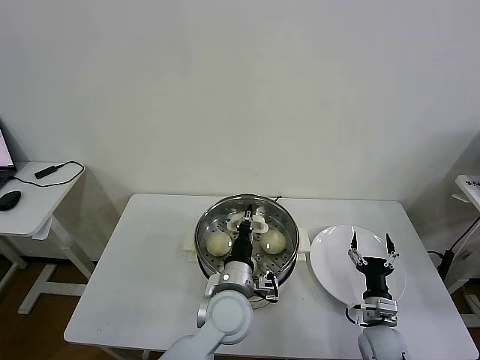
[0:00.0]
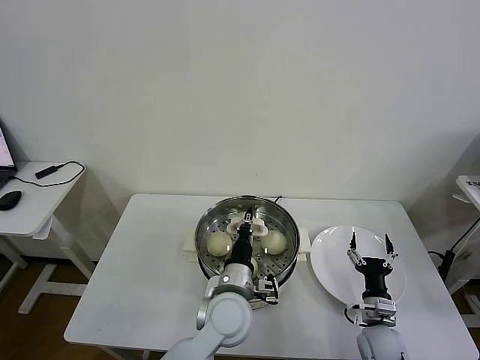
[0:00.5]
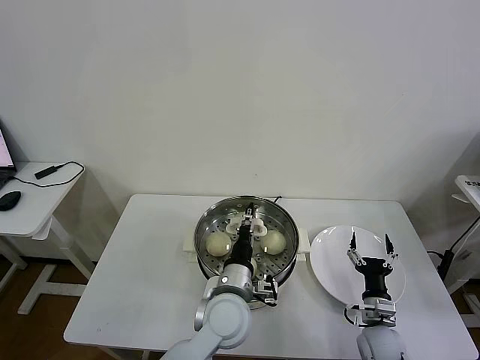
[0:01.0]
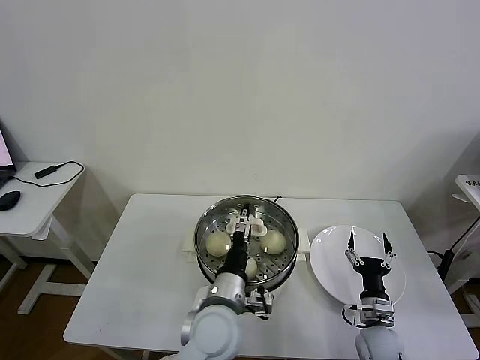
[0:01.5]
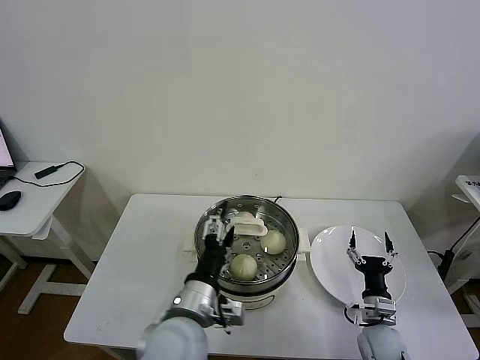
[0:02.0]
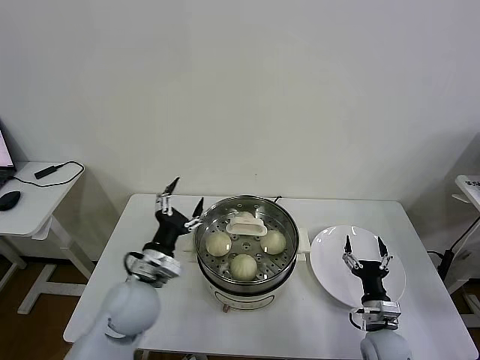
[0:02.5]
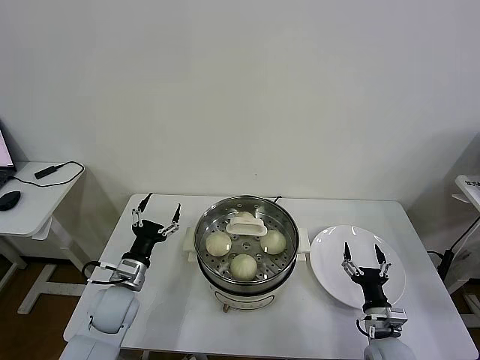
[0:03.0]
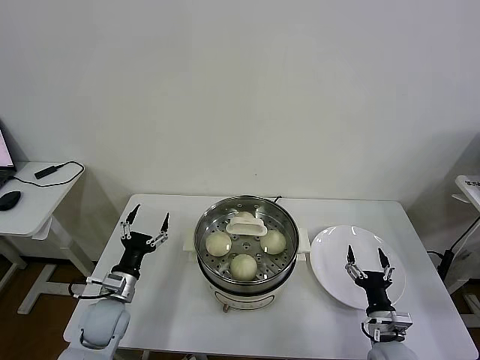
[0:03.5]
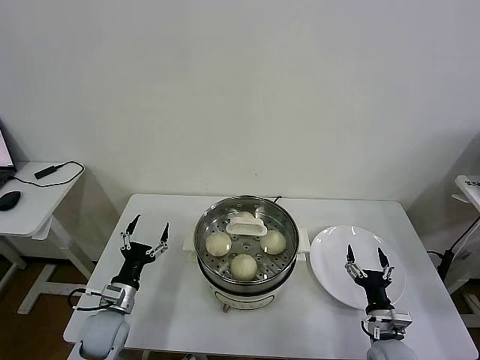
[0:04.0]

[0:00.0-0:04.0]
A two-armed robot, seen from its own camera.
Task of the whole recording: take steamed baozi put them in steamer then cover it.
0:00.0 to 0:02.0: The left gripper shifts some 10 cm backward, to the left and upward, and opens.
0:02.0 to 0:04.0: The left gripper travels to the left and downward by about 25 cm.

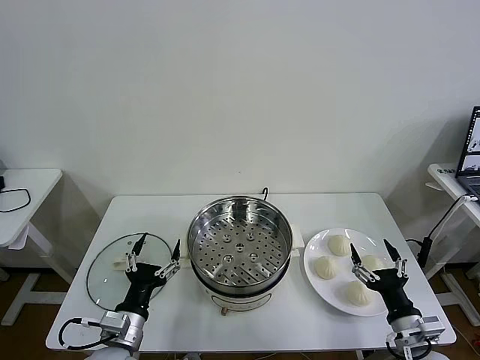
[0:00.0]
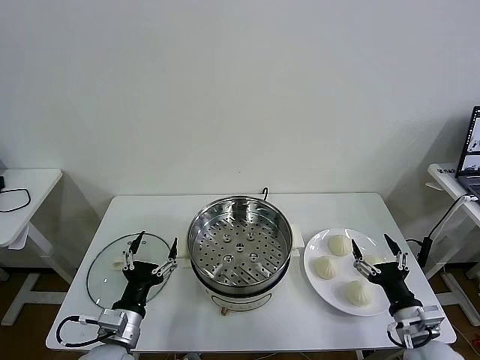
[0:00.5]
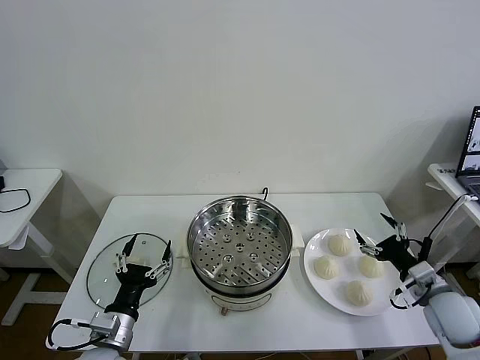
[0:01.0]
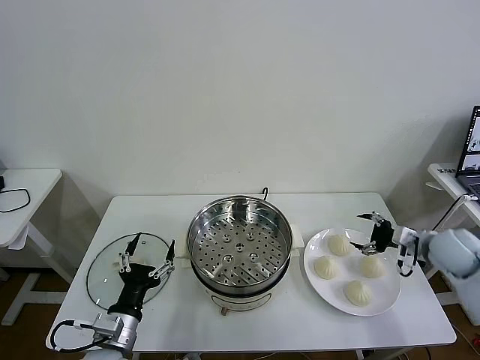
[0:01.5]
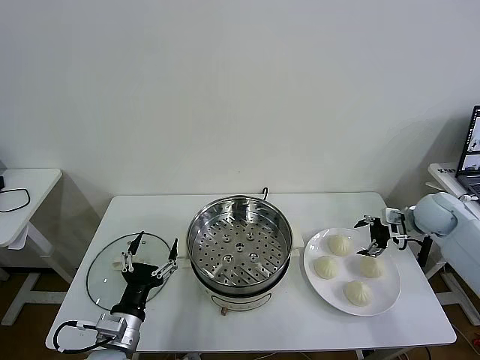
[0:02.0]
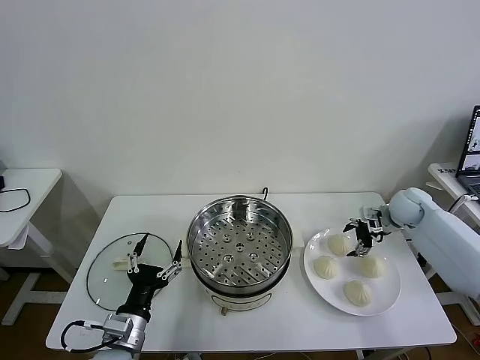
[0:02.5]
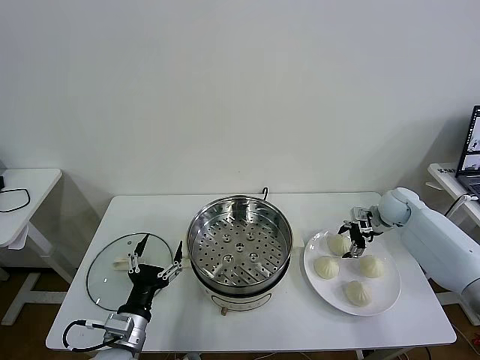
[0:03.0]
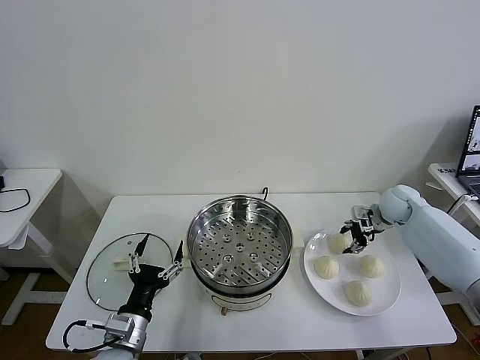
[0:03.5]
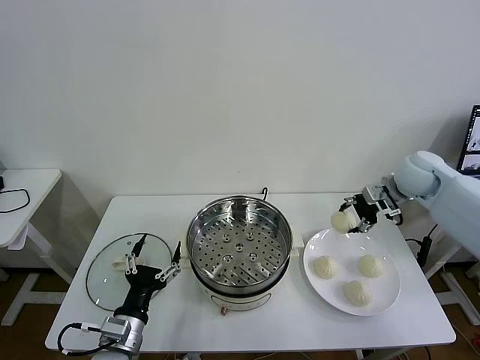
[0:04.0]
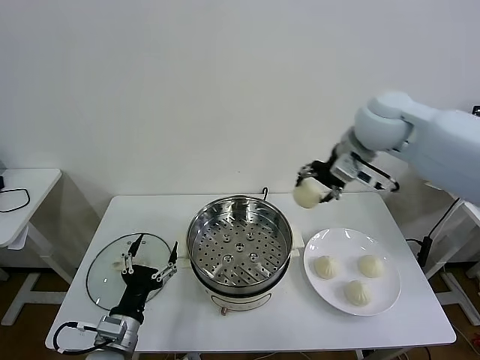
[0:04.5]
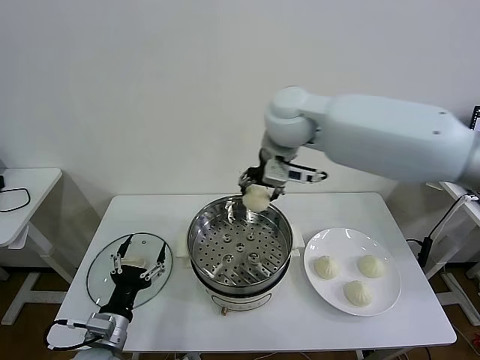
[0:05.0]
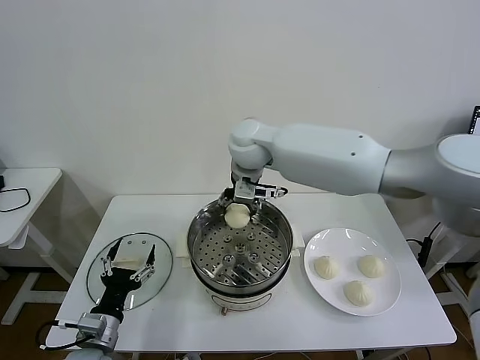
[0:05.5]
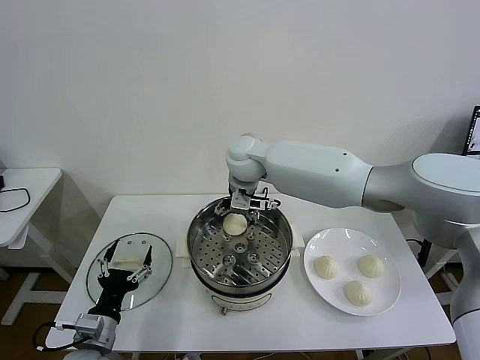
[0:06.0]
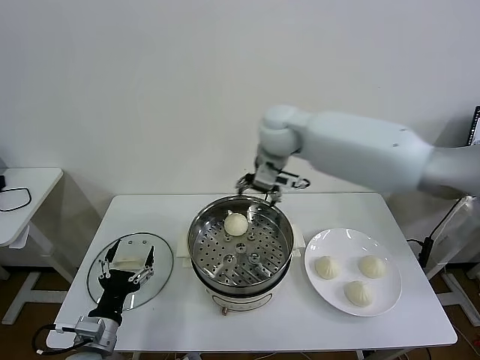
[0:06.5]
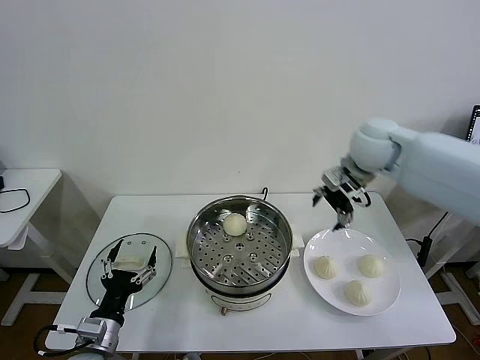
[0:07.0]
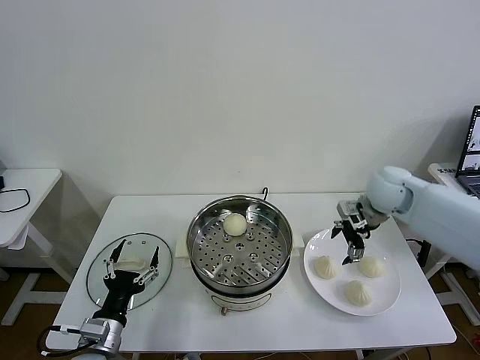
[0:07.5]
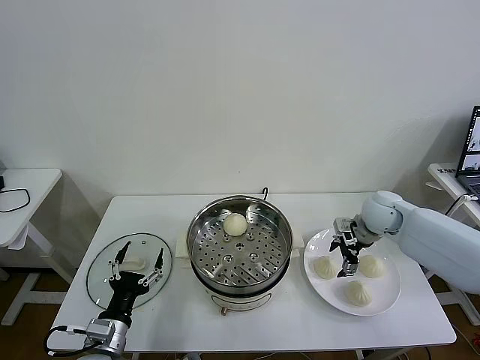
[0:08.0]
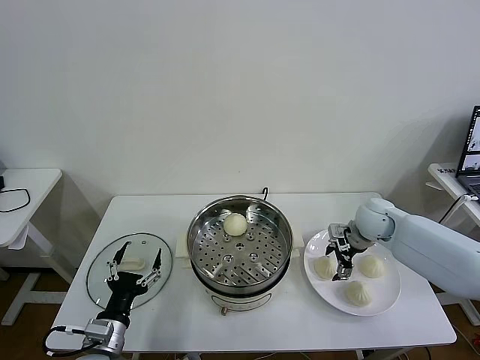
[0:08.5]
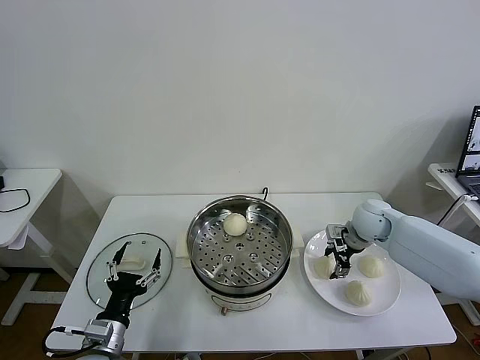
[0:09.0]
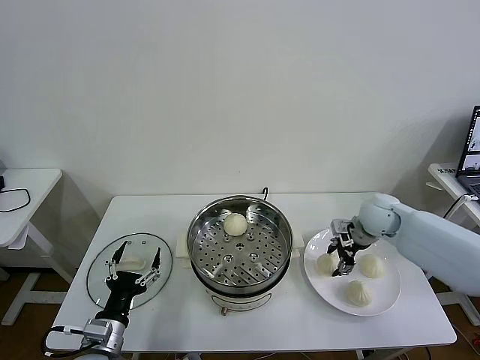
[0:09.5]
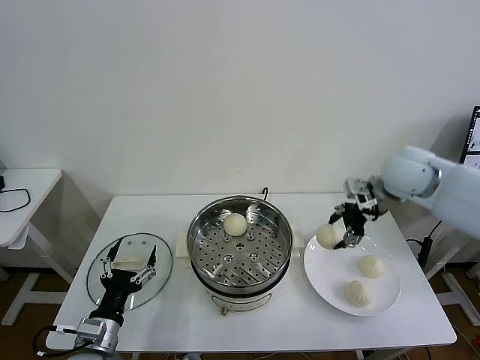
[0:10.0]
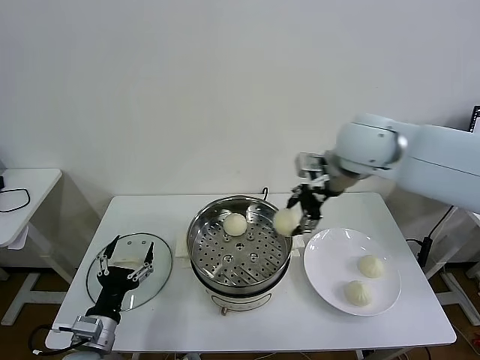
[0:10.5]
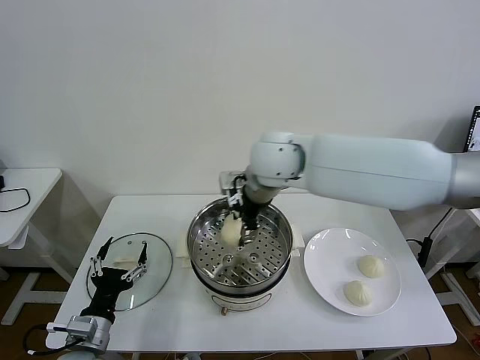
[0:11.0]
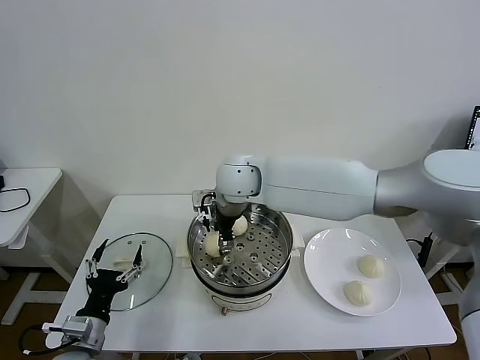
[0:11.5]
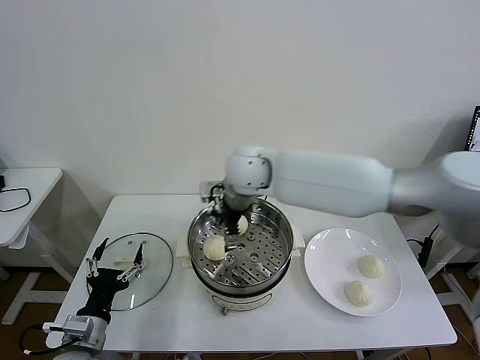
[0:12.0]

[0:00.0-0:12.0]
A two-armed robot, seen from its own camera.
Task of the whole recording: take steamed baozi put them in steamer then cover it.
Step, 0:00.0 to 0:03.0: Grasp the baozi in the plate with right gripper.
Step, 0:03.5 to 0:06.0: Place the baozi on the steamer with right gripper.
Step, 0:06.5 to 0:08.5: Grasp the baozi in the plate with right gripper.
Step, 0:09.0 to 0:11.5: Place the baozi on the steamer with right gripper.
0:02.0 to 0:04.0: The right gripper goes some 15 cm upward and to the left, and closes up.
0:04.0 to 0:06.0: The right gripper travels to the left by approximately 35 cm, and opens its fingers, while the left gripper heads to the left, covering about 5 cm.
0:06.0 to 0:08.0: The right gripper goes roughly 35 cm to the right and downward.
0:08.0 to 0:10.0: The right gripper moves upward, approximately 20 cm, and closes its fingers.
0:10.0 to 0:12.0: The right gripper moves to the left, some 25 cm, and opens.

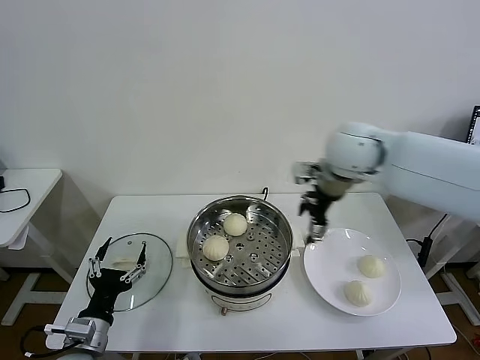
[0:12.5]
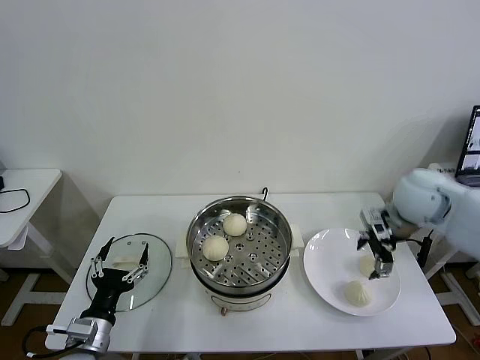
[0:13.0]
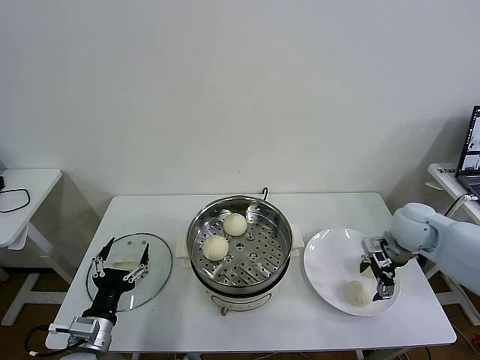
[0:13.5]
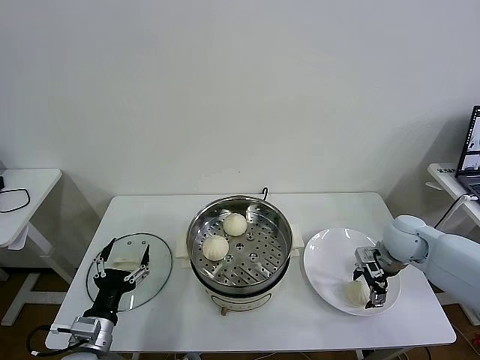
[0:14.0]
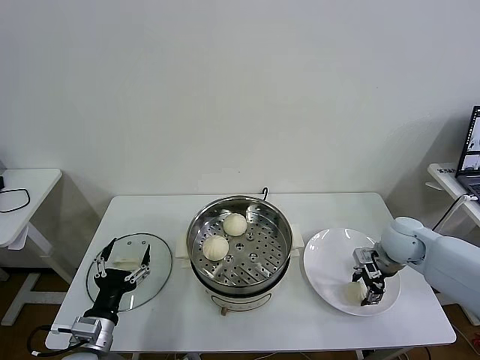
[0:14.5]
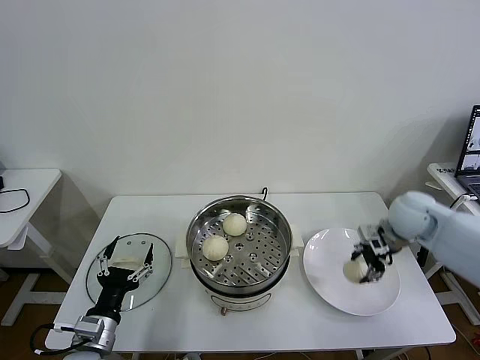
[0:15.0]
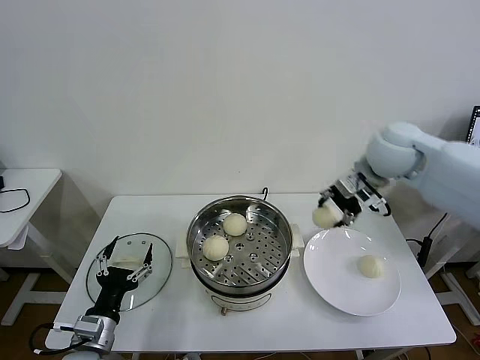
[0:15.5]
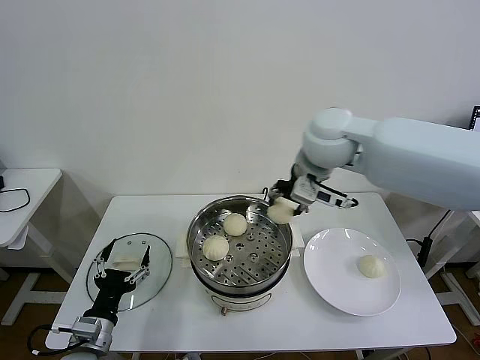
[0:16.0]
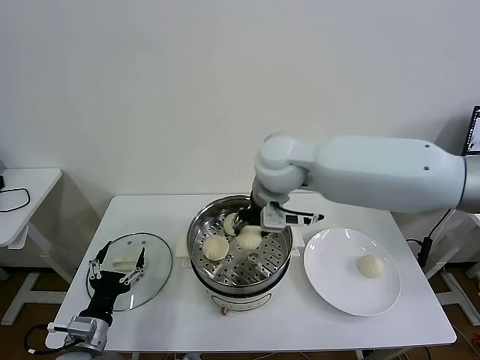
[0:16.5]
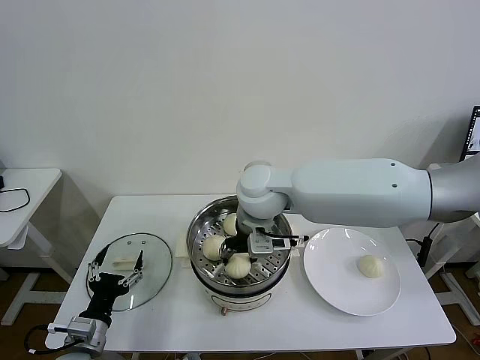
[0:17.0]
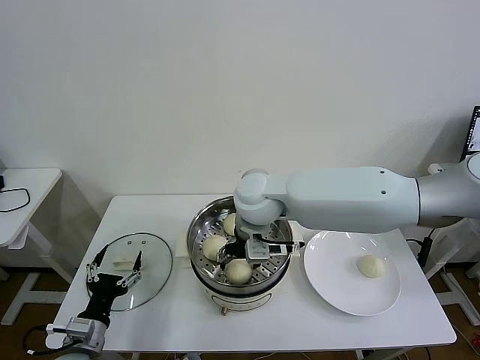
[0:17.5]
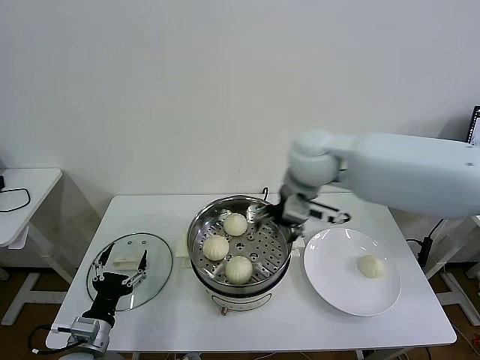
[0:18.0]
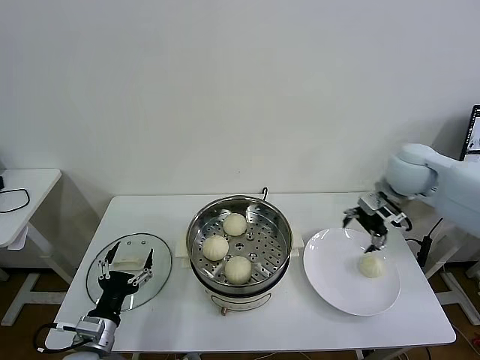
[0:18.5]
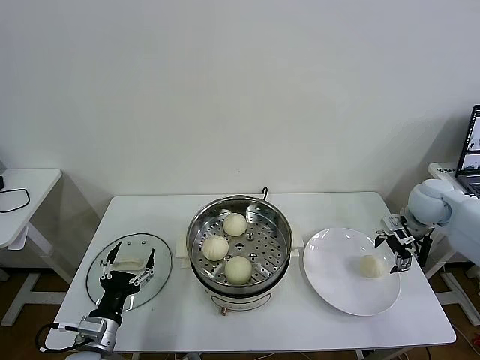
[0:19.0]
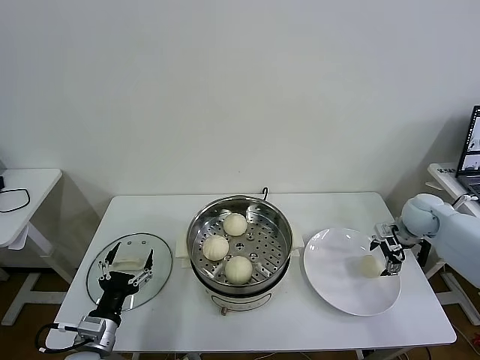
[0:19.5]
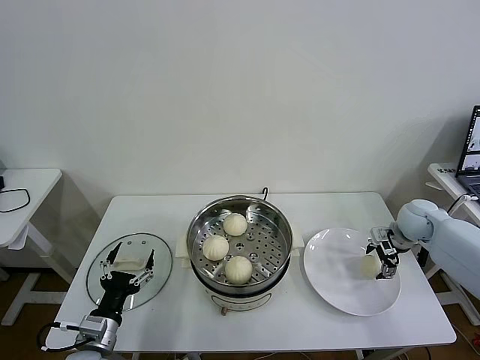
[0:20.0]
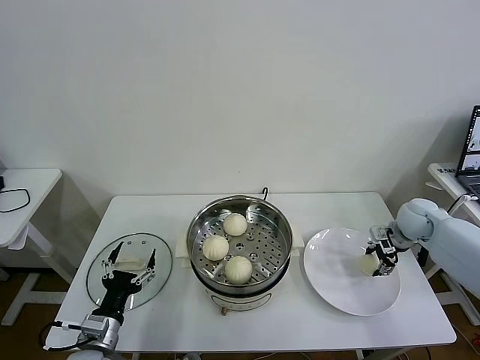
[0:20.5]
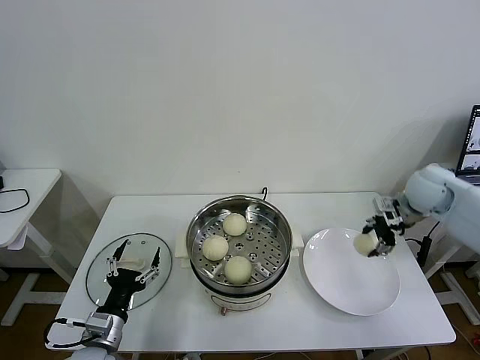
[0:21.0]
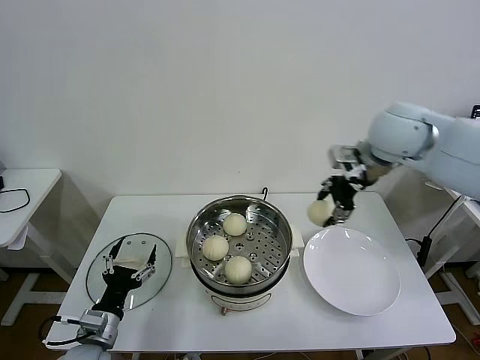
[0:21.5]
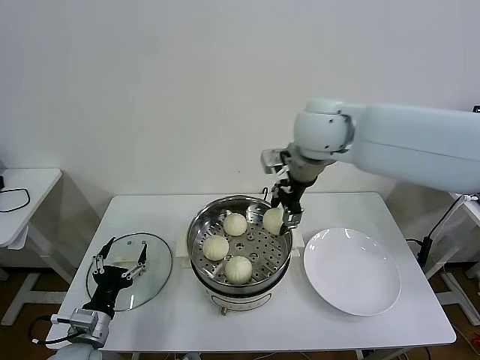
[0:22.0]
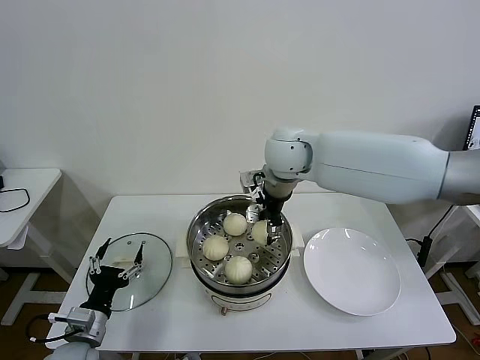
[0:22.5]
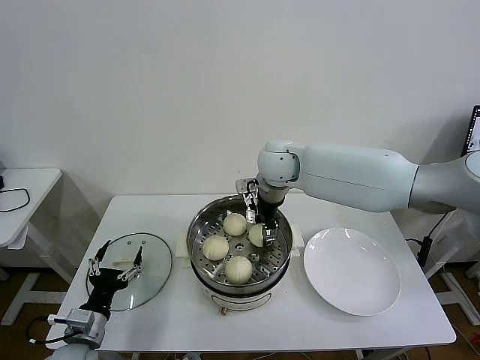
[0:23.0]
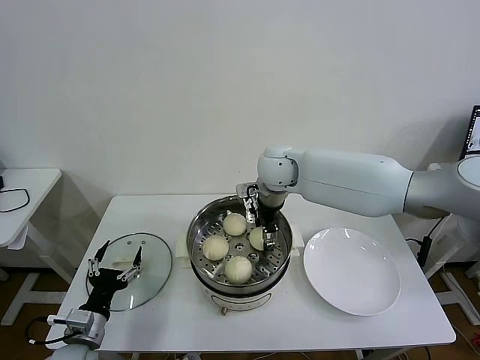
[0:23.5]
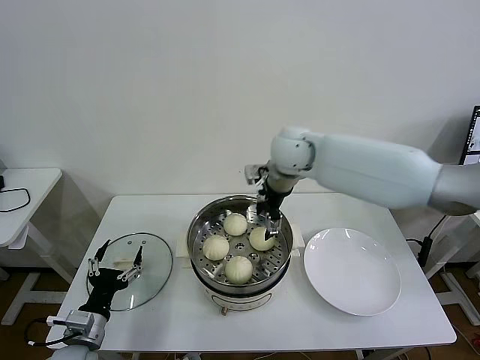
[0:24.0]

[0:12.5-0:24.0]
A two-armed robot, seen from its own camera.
Task of the whole recording: take steamed baozi put them in steamer then cover it.
Step, 0:12.5 to 0:14.0: Grasp the baozi in the plate with right gripper.
Step, 0:14.5 to 0:17.5: Place the baozi on the steamer with right gripper.
Step, 0:18.0 to 0:20.0: Grasp the baozi in the plate with right gripper.
Step, 0:20.5 to 0:23.5: Place the baozi on the steamer with right gripper.
0:12.5 to 0:14.5: The right gripper travels downward and to the right by some 25 cm, and closes its fingers.
0:14.5 to 0:16.5: The right gripper shifts roughly 35 cm to the left and upward.
0:16.5 to 0:18.5: The right gripper heads to the right, covering roughly 30 cm, and opens.
0:18.5 to 0:20.0: The right gripper shifts some 20 cm downward and to the right.
0:20.0 to 0:22.0: The right gripper travels to the left and upward by approximately 40 cm, and closes its fingers.
0:22.0 to 0:24.0: The right gripper heads downward and forward, covering some 10 cm, and opens.
